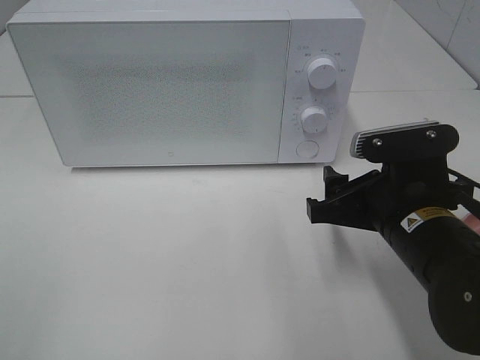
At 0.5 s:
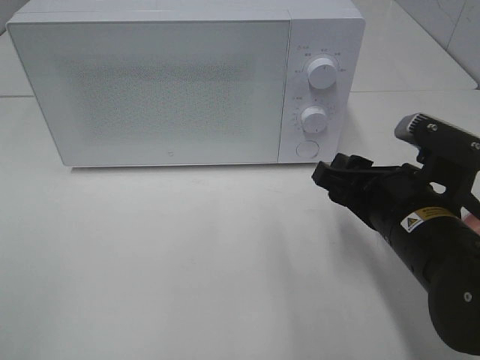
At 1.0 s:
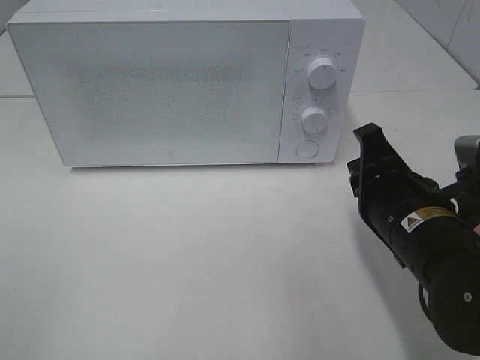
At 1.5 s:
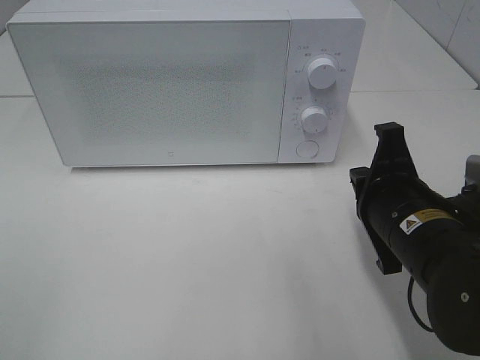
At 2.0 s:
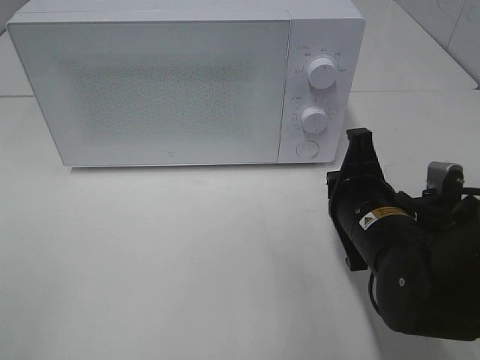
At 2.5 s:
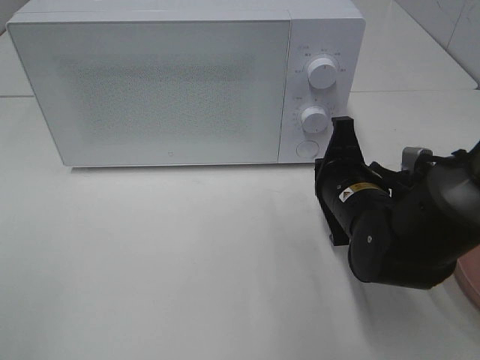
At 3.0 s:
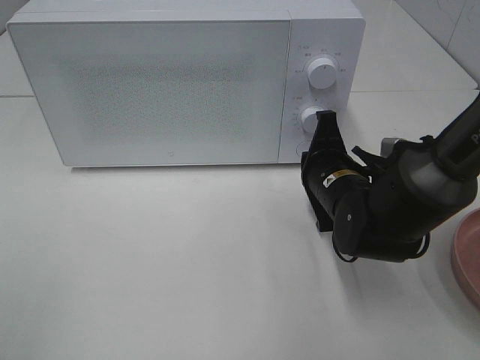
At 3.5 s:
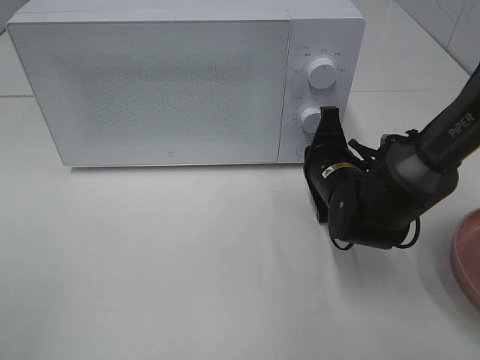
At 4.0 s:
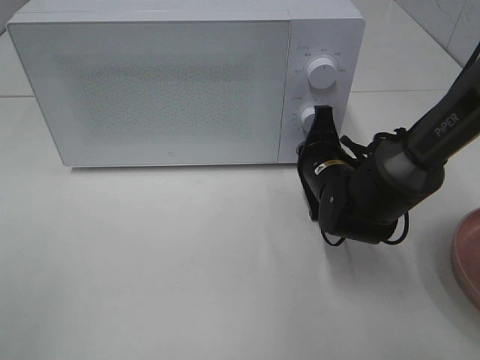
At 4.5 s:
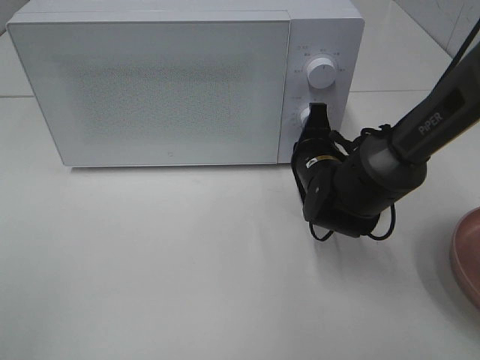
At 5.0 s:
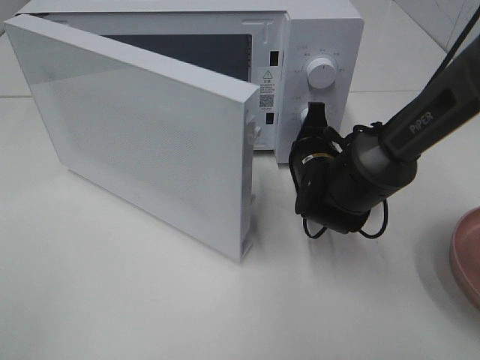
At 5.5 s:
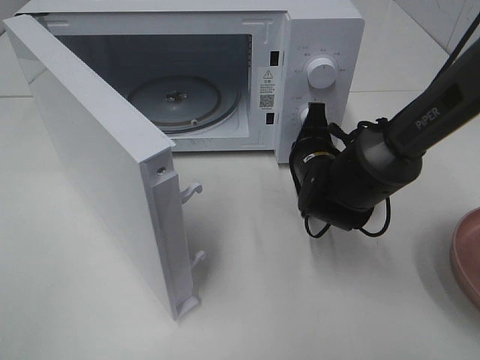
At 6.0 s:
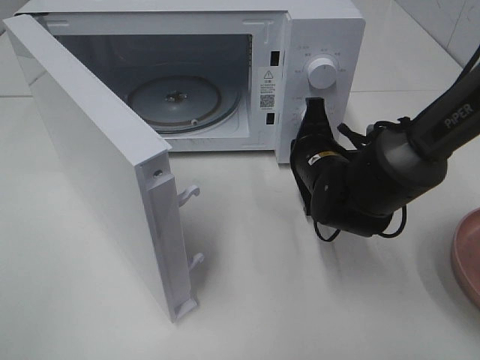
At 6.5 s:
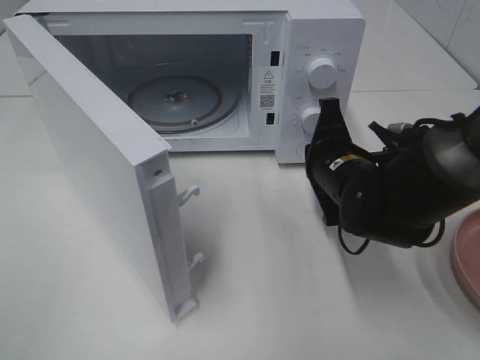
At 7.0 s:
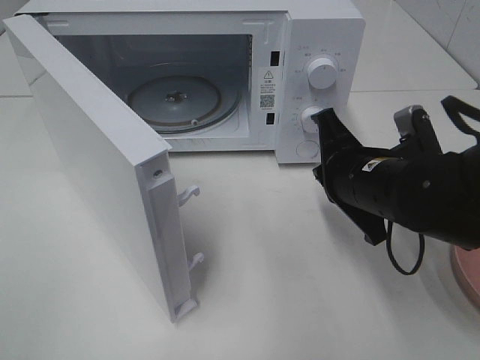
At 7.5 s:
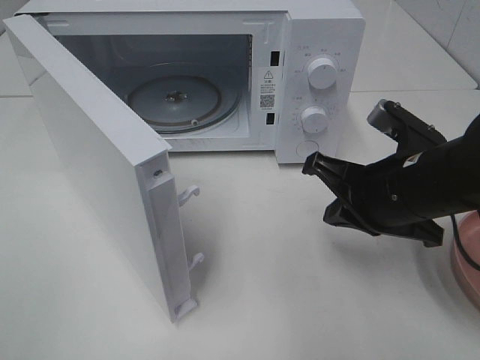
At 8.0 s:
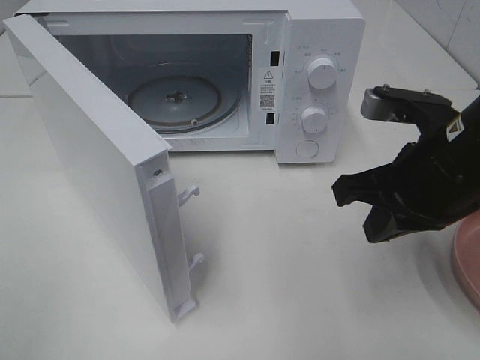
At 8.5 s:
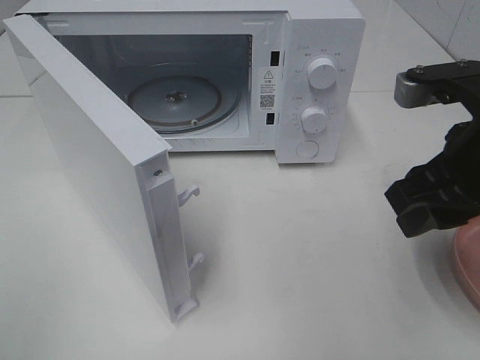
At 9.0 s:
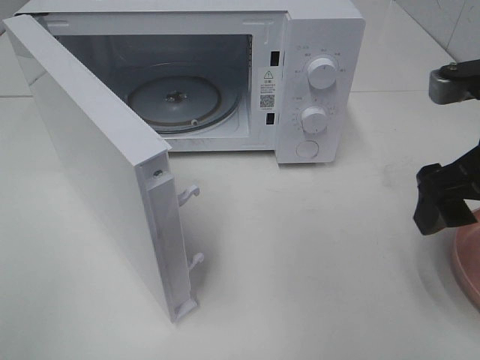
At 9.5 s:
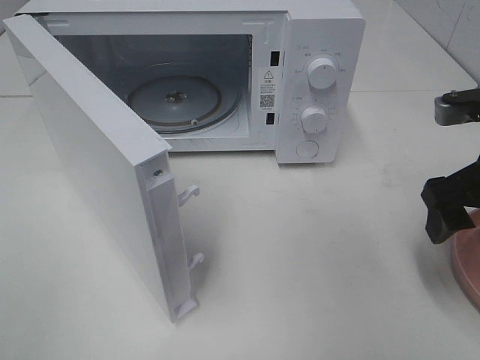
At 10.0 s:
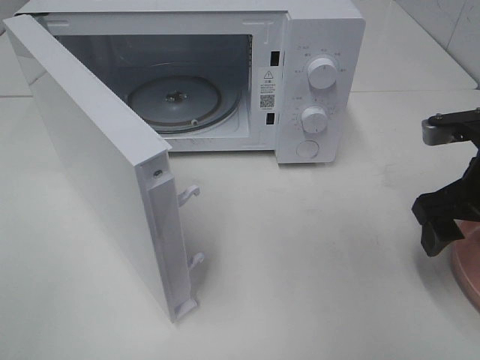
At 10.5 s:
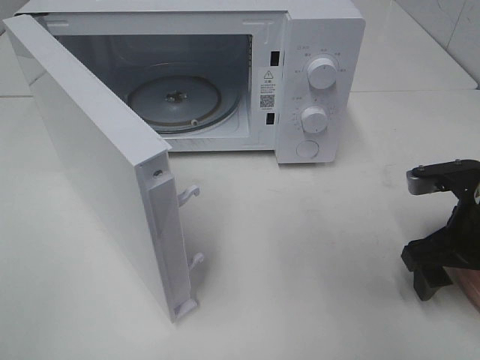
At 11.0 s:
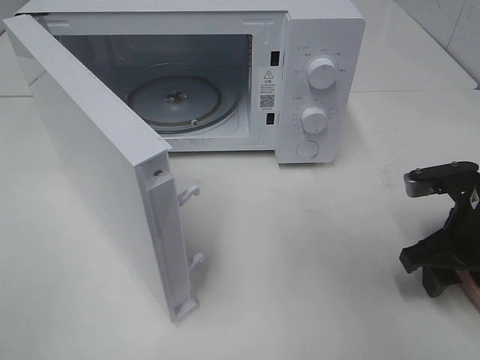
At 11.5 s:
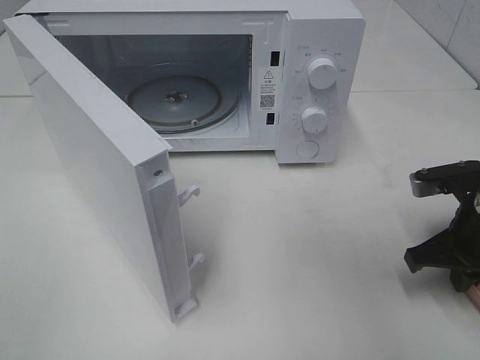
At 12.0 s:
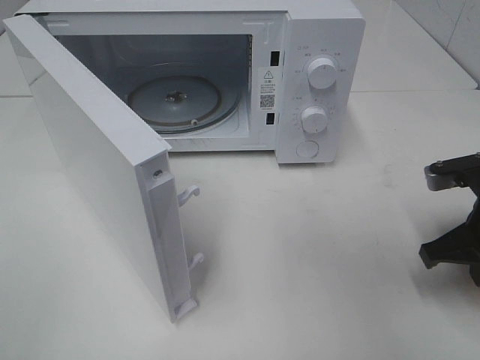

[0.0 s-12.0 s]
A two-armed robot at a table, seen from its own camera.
Task of the whole recording: Heat the burger.
Step, 0.0 to 6.0 s: Right hand: press the switch.
Step, 6.5 to 11.5 s: Right hand: grab the plate with the hamburger.
0.0 to 2.0 s: The right gripper closes its fingers.
2.0 to 4.0 s: The right gripper goes some 10 cm forward.
6.0 to 8.0 s: The right gripper shifts roughly 20 cm upward, backward and to the right.
8.0 to 10.0 s: The right gripper shifts some 10 cm to the right, and opens.
10.0 to 12.0 s: The right gripper closes its fingers.

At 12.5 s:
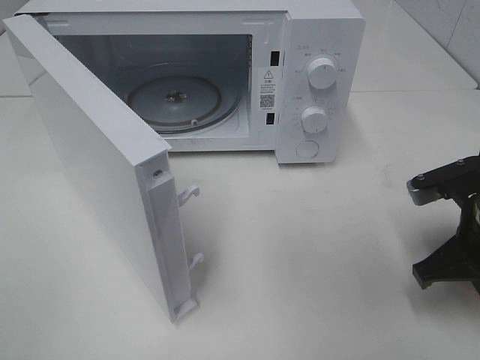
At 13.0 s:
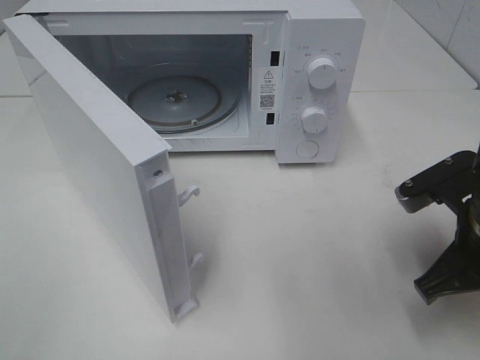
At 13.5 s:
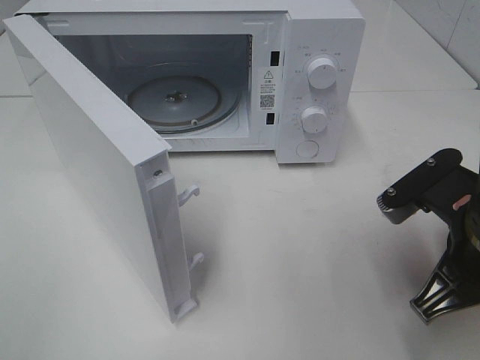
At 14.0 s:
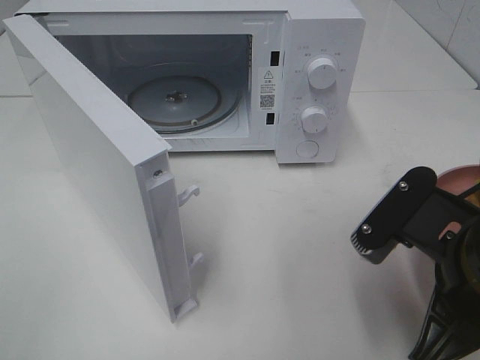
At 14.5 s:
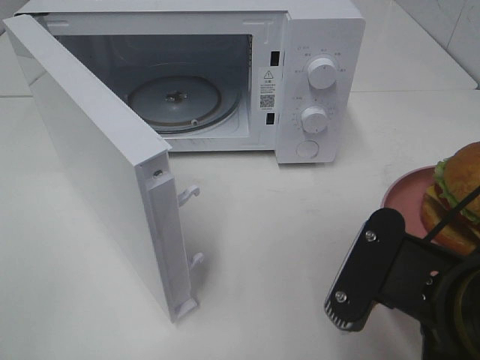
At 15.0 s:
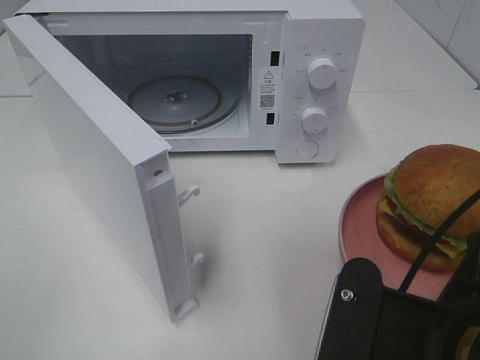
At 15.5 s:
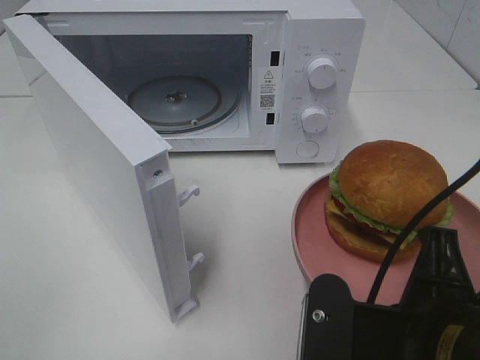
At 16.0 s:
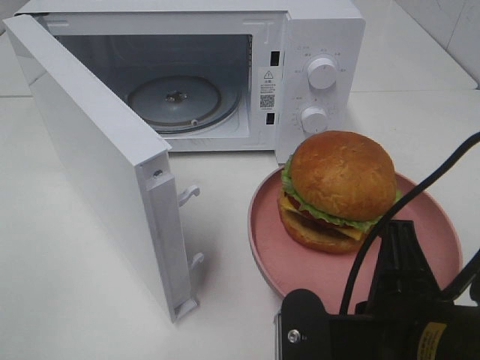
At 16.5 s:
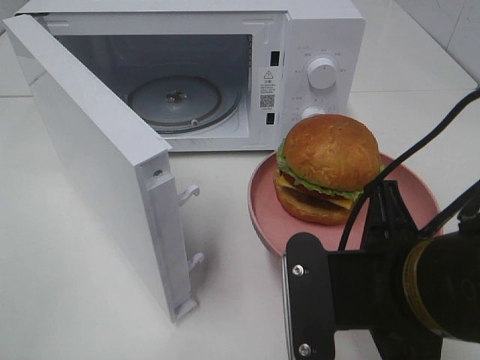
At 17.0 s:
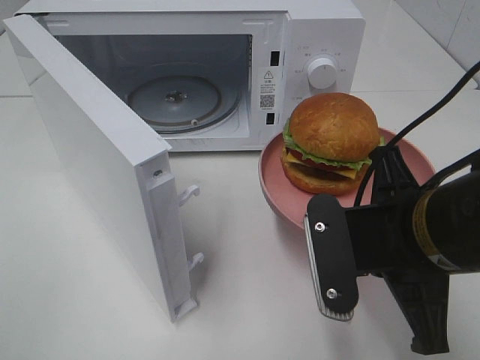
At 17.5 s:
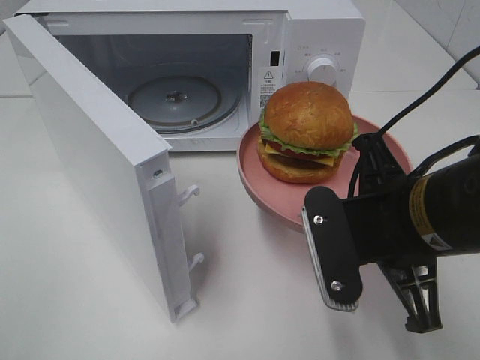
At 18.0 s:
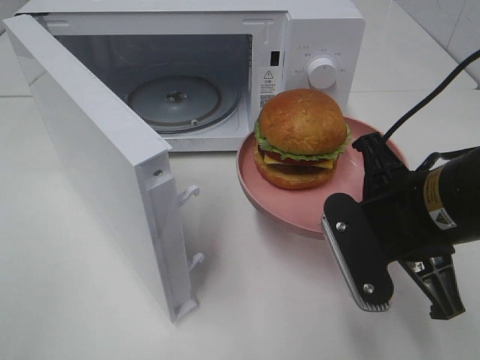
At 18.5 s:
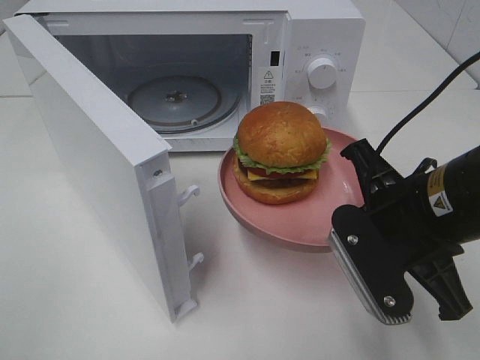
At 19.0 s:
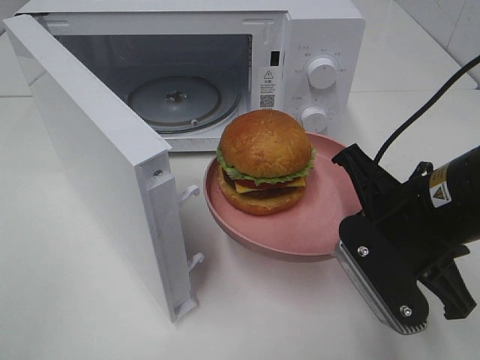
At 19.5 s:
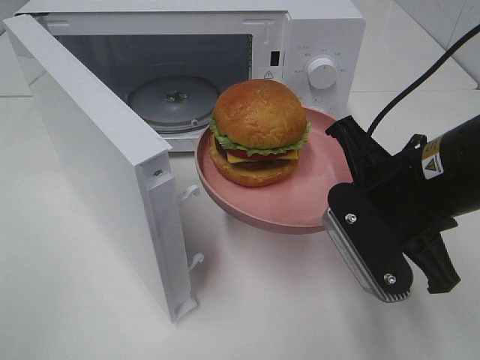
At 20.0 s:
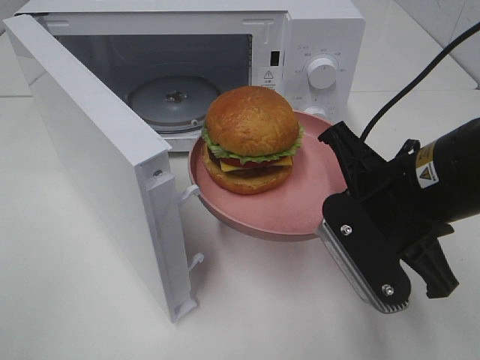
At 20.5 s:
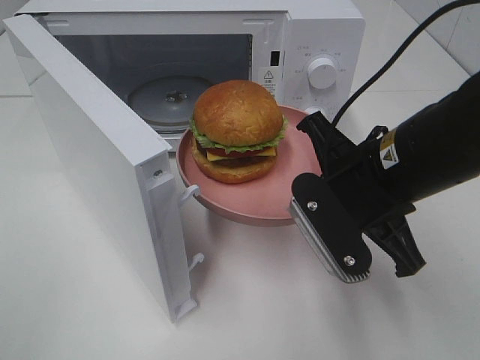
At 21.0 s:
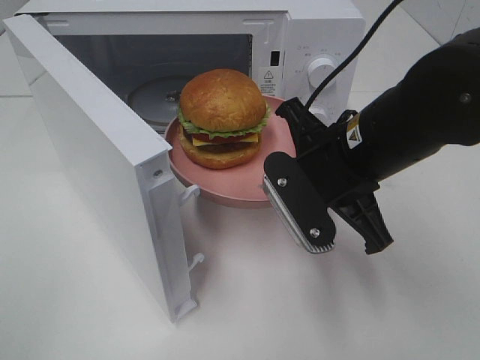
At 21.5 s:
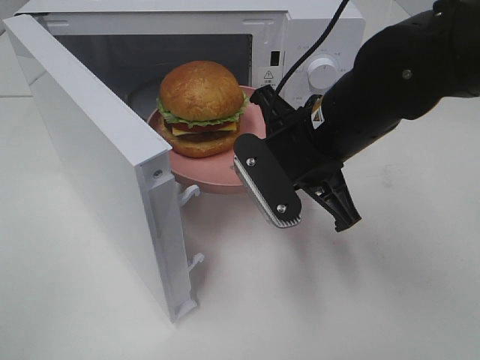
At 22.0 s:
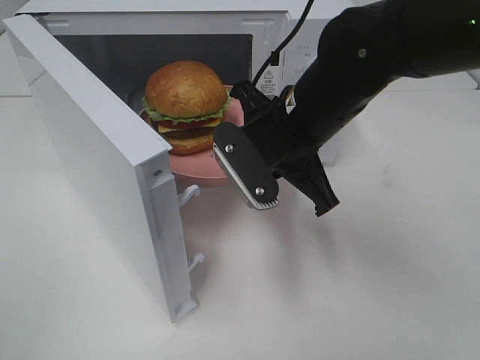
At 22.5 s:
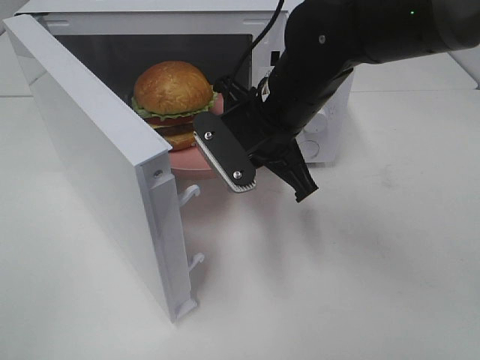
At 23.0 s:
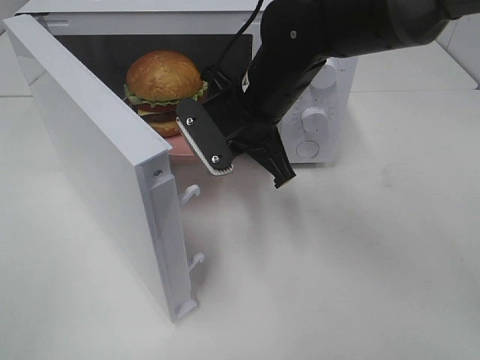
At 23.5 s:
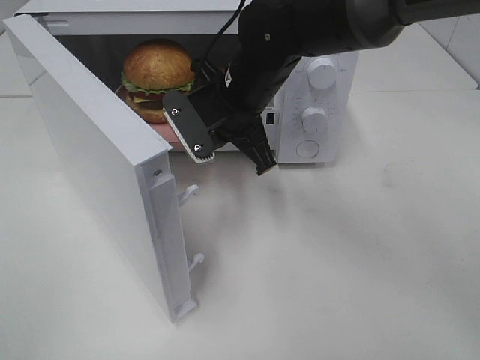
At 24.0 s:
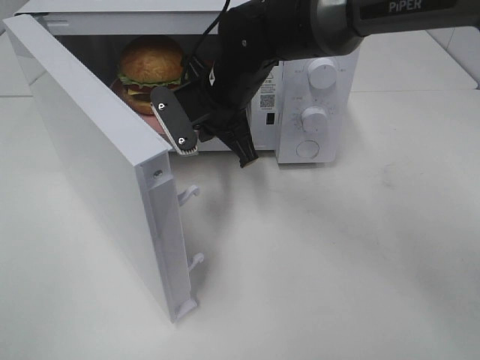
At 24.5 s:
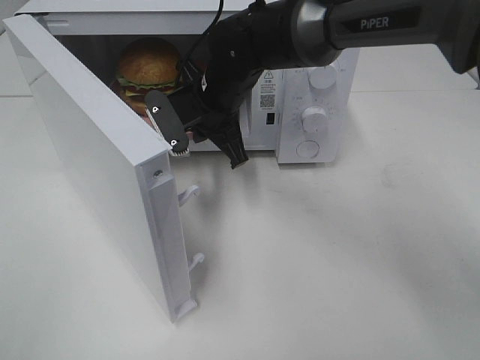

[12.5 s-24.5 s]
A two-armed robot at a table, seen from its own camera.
Task of the whole recording: Heat the burger.
12.5 to 14.5 s: The right gripper shifts roughly 20 cm backward, to the left and upward.
16.5 to 18.5 s: The right gripper moves forward, approximately 5 cm.
20.5 to 22.5 s: The right gripper moves forward and to the left, roughly 15 cm.
22.5 to 24.5 s: The right gripper moves forward and to the left, approximately 10 cm.

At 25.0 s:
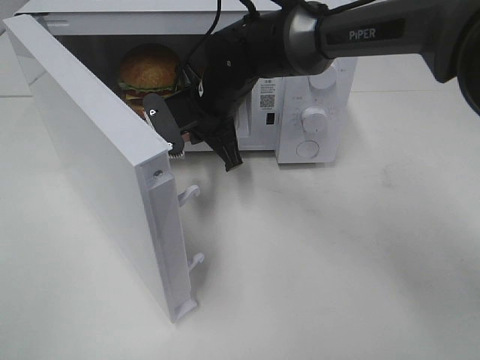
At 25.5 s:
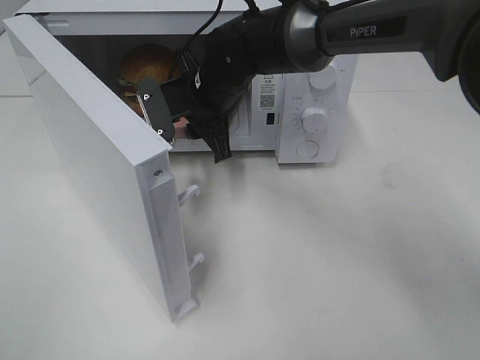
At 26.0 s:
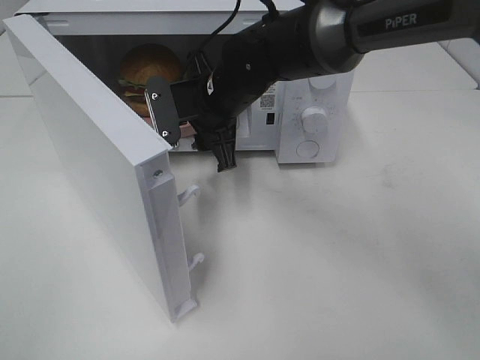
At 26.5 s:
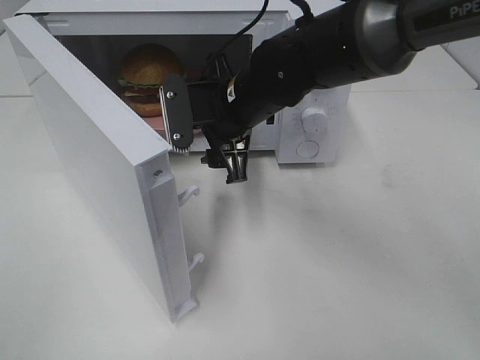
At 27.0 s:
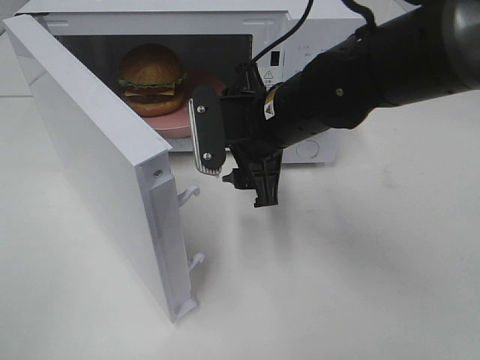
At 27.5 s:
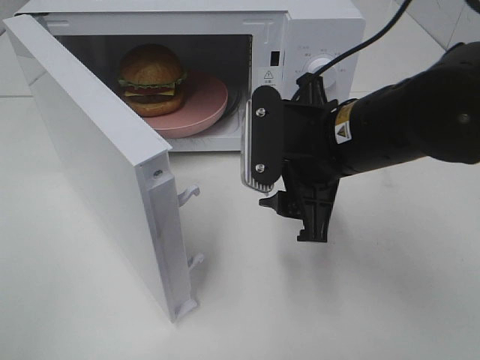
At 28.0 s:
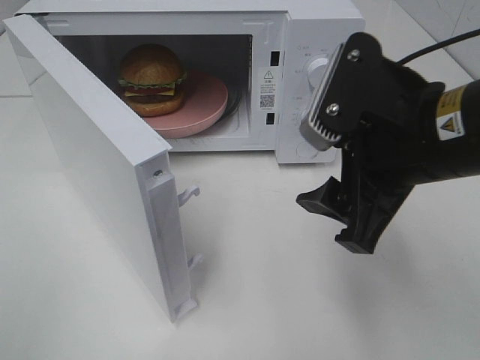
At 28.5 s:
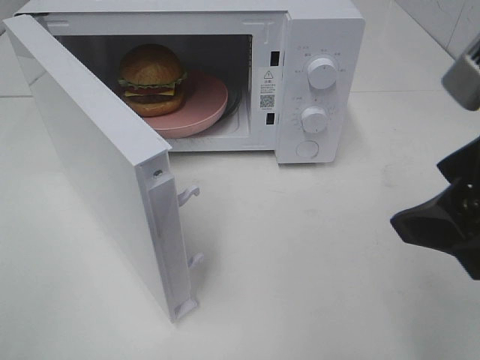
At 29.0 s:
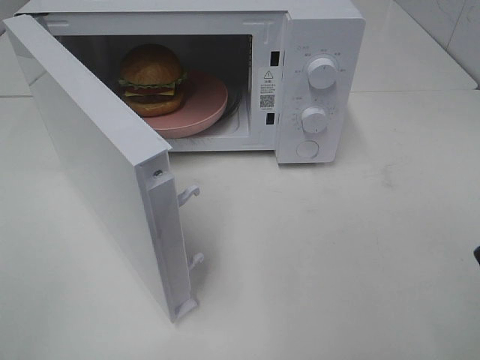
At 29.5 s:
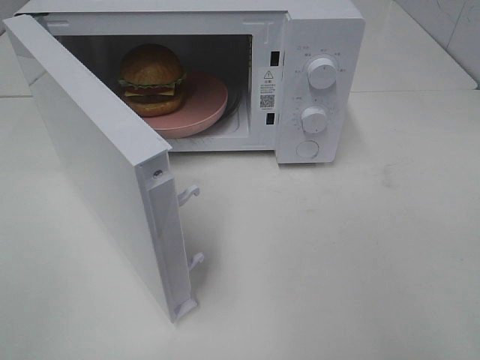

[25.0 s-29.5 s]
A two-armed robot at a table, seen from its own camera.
Task of the whole recording: Heat the burger.
25.0 to 27.0 s: The right gripper travels backward and to the right by approximately 10 cm, and opens its fingers.
27.0 to 29.5 s: The right gripper is displaced backward, to the right and upward by some 35 cm.
